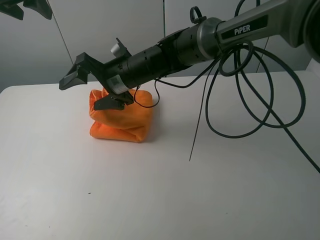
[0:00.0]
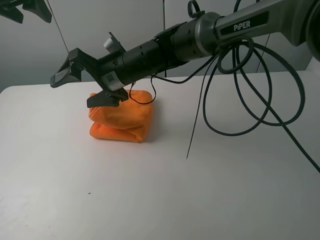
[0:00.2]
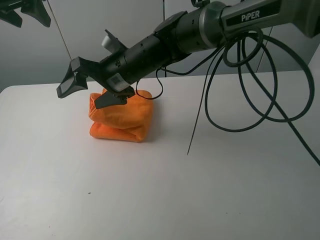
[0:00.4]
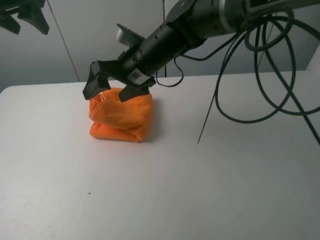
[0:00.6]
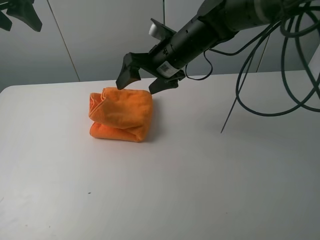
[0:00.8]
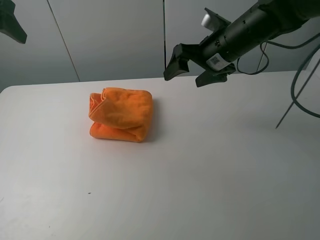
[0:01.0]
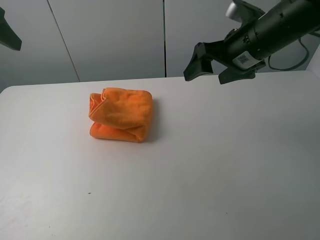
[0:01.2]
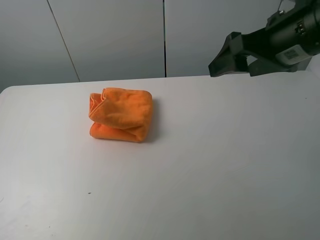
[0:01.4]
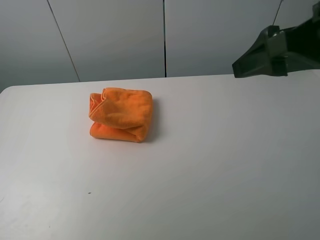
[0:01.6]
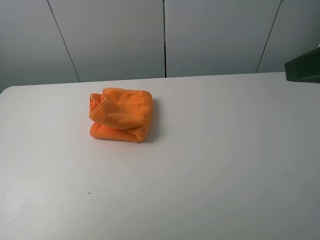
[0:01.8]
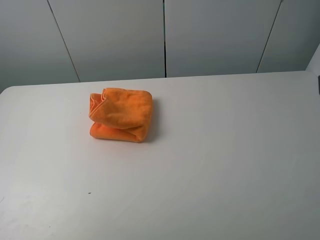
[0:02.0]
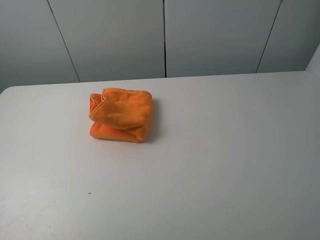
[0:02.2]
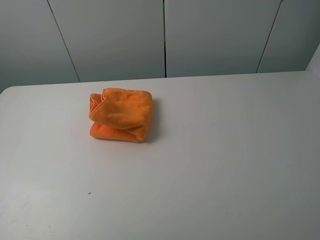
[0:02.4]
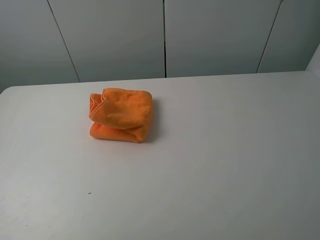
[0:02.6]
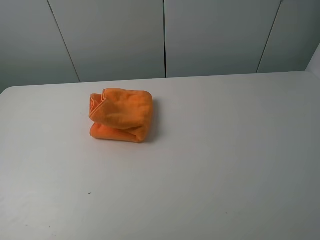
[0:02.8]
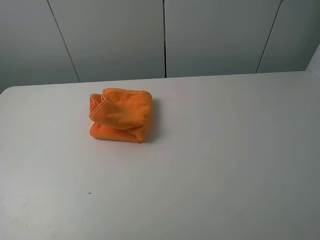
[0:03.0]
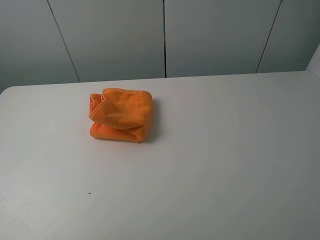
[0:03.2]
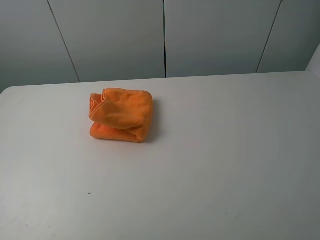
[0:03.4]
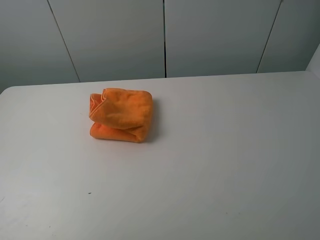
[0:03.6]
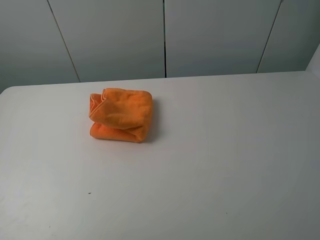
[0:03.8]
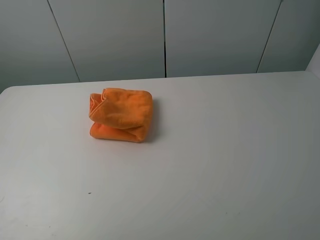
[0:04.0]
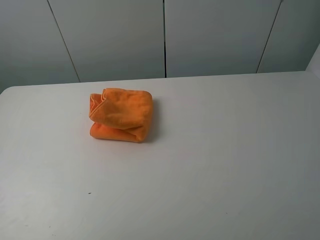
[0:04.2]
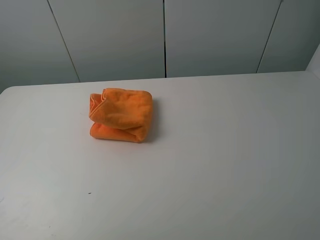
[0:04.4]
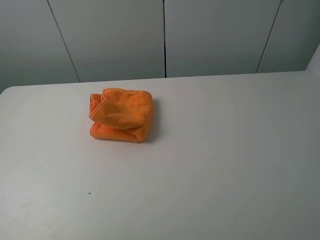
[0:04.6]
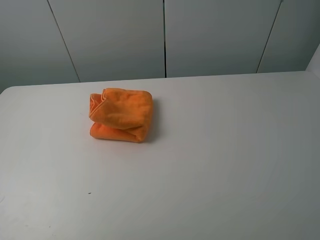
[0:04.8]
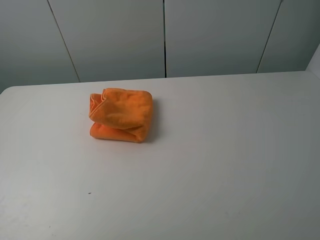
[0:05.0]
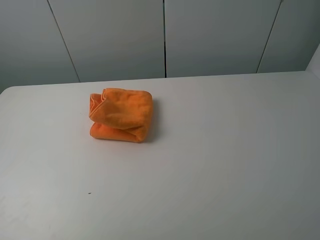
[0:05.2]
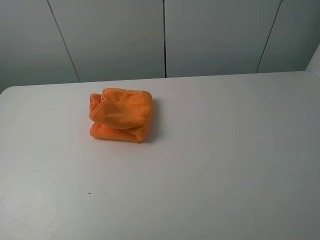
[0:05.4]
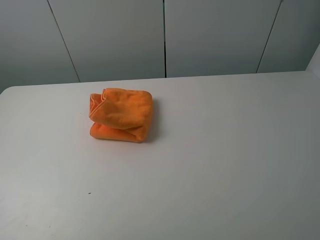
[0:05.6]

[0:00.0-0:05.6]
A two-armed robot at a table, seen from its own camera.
Task of the whole recording: fold the towels on the table.
0:00.0 to 0:01.4: The left gripper travels backward by about 20 cm; the right gripper is displaced to the right, upward and backward by roughly 30 cm.
0:01.4 to 0:02.8: The left gripper moves backward, roughly 20 cm. The right gripper goes roughly 25 cm backward and to the right.
